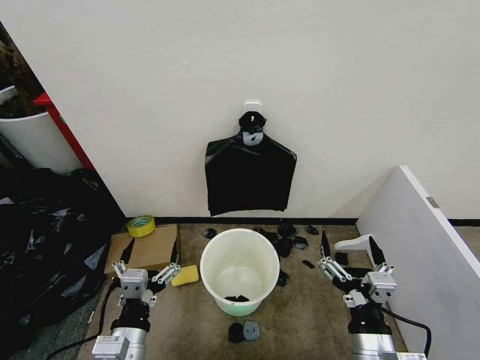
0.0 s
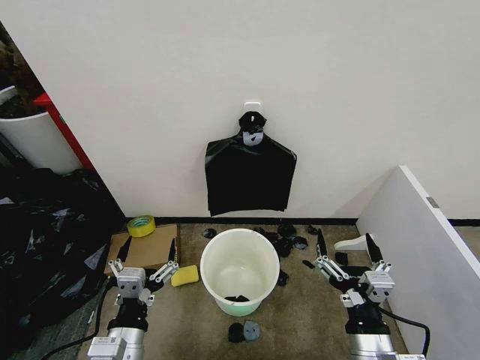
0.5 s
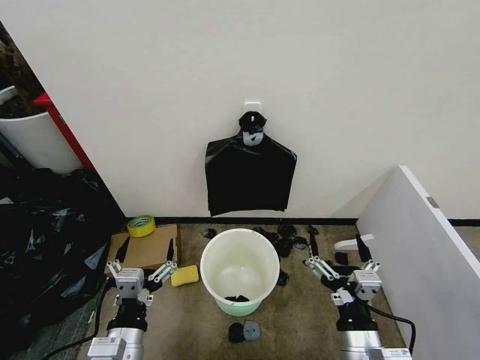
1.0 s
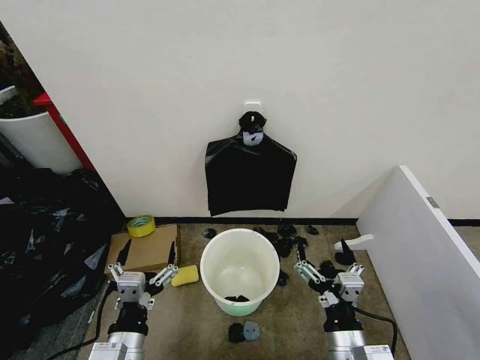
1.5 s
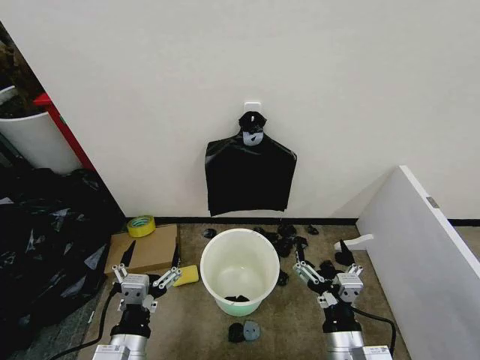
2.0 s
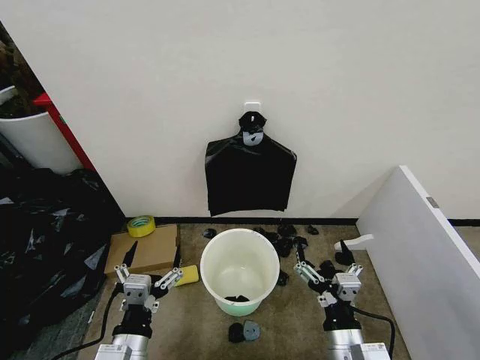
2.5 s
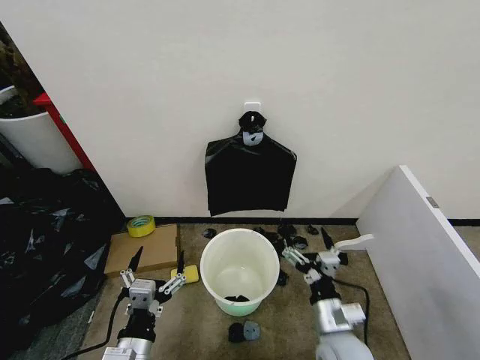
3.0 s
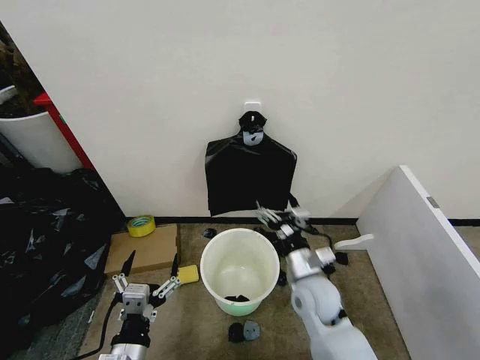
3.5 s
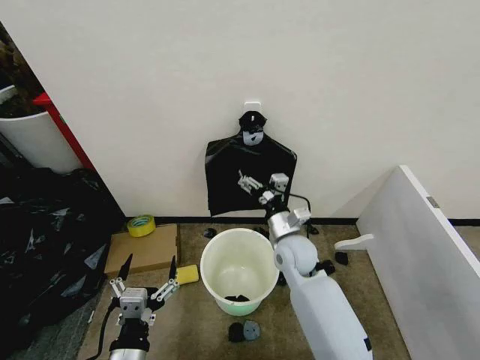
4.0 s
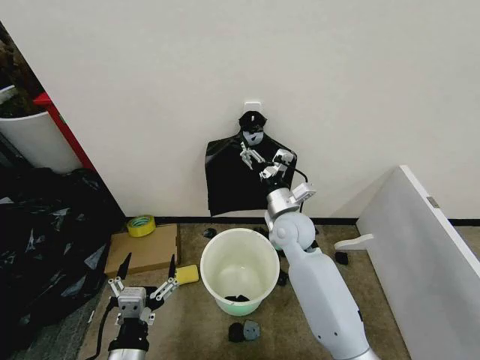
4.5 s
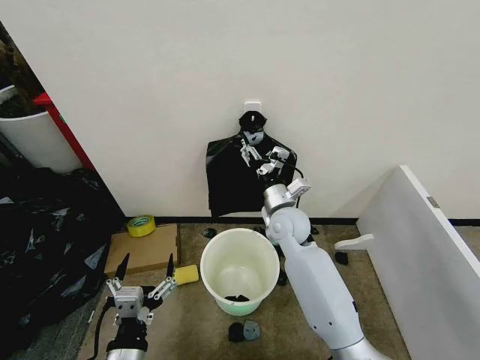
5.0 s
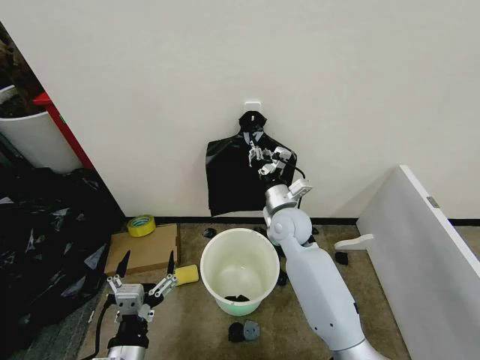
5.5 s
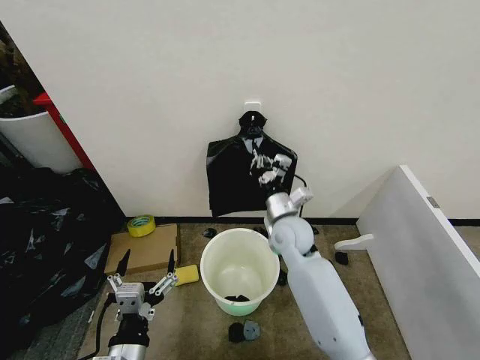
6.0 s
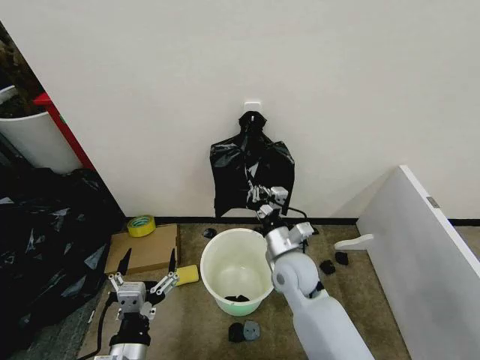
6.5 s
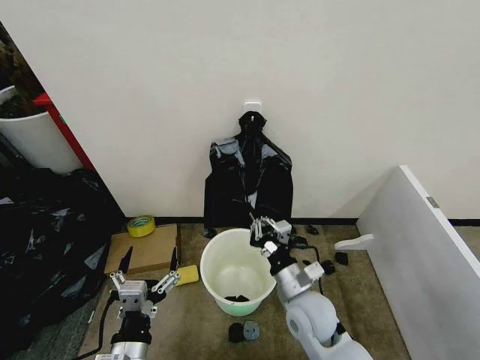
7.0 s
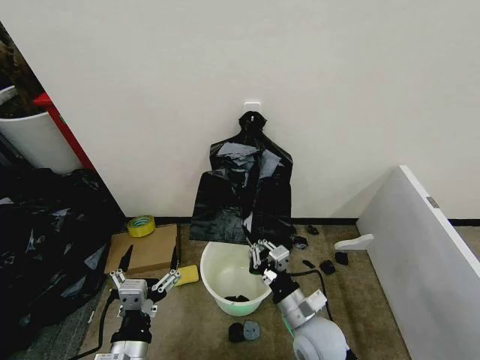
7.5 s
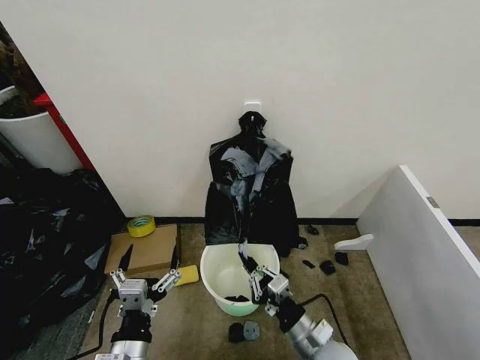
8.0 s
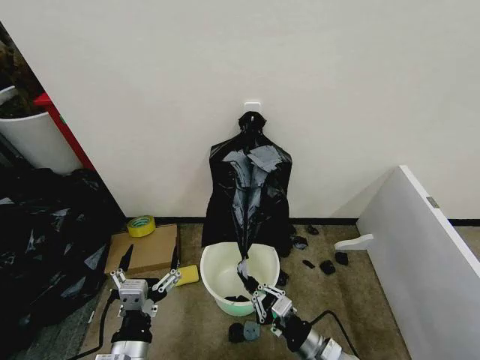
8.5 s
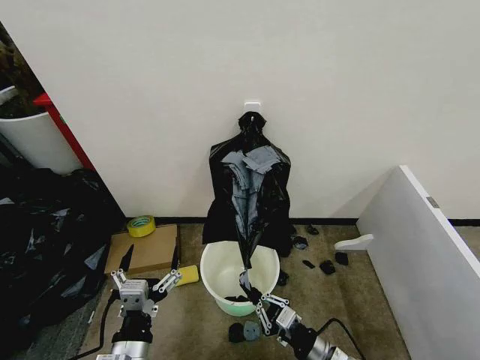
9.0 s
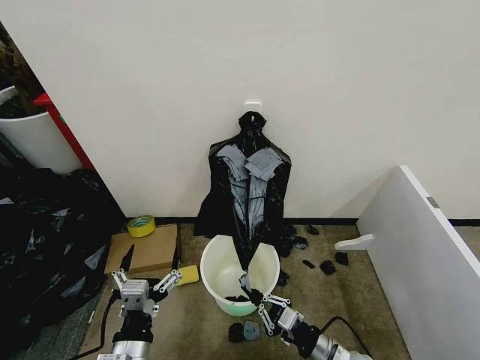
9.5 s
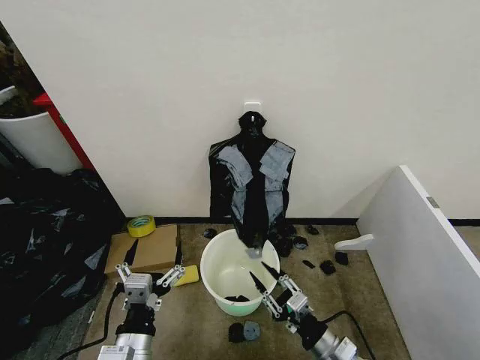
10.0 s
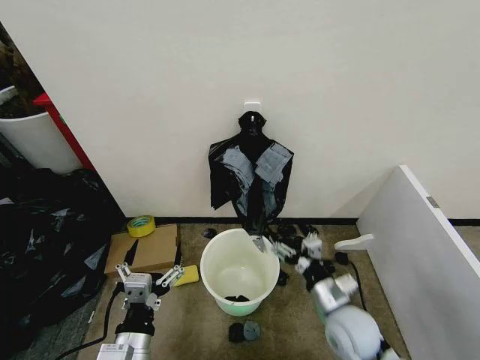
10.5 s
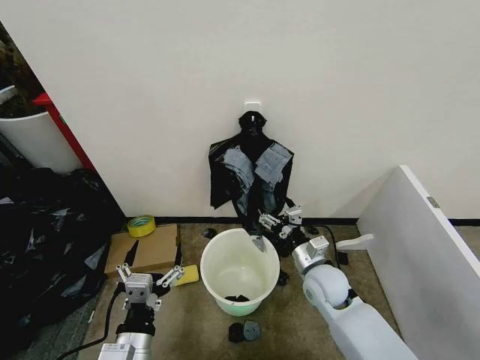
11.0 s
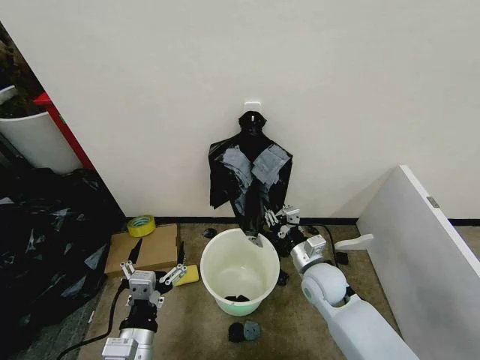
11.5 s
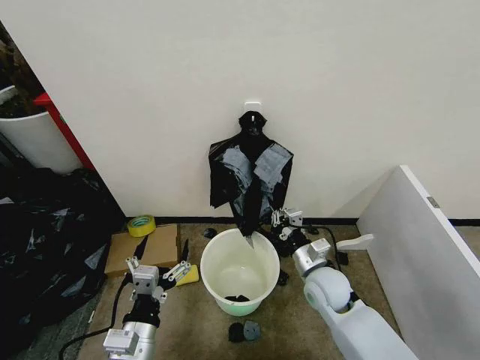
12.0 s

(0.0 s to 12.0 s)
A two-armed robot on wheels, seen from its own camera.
Task of the whole recording: Place the garbage bag over the trash bin.
2.0 s - 4.0 s: The right gripper heads forward, covering some 25 cm.
4.0 s - 6.0 s: The right gripper closes up.
6.0 s - 8.0 s: The right gripper moves backward and downward, some 25 cm.
8.0 s - 10.0 s: The right gripper ends up roughly 5 cm from where it was.
10.0 s - 12.0 s: The right gripper heads forward, covering about 15 cm, and opens, then closes once more.

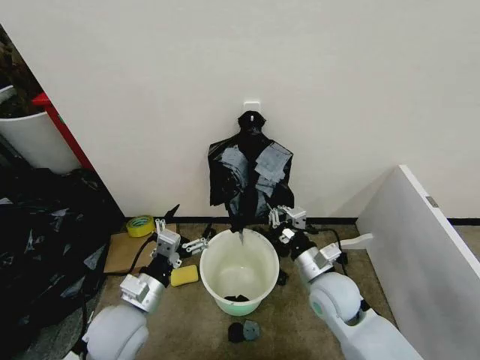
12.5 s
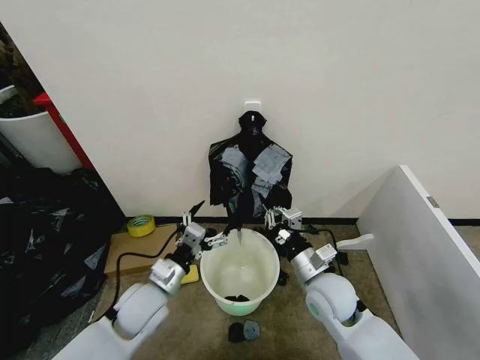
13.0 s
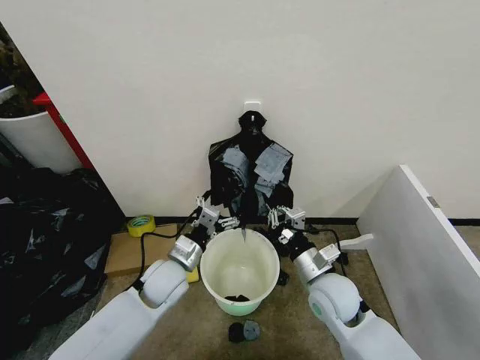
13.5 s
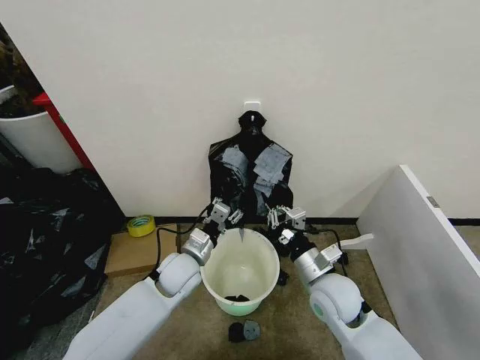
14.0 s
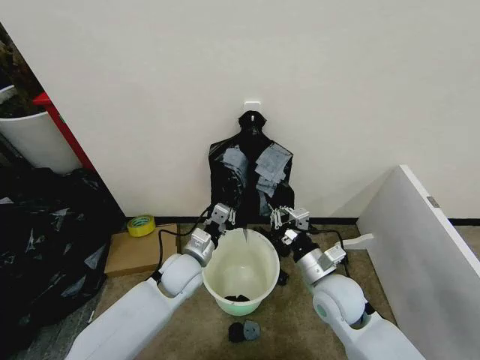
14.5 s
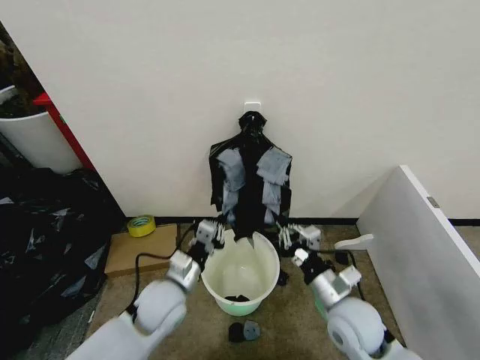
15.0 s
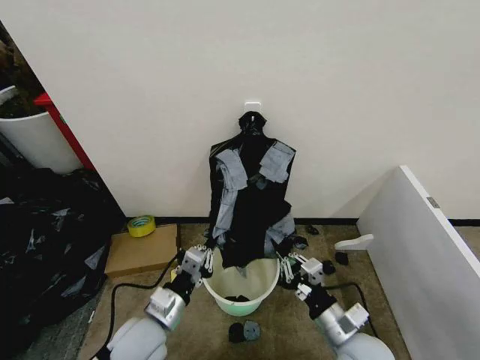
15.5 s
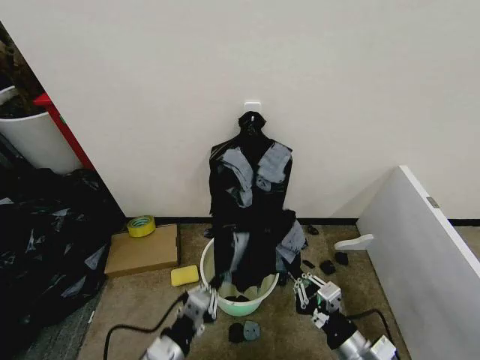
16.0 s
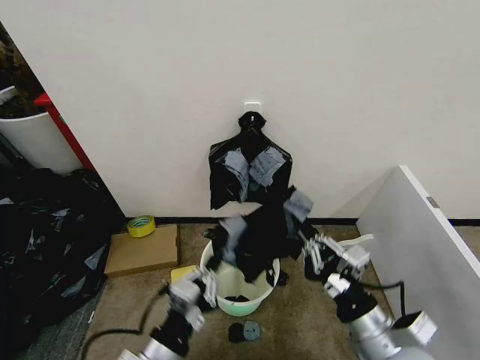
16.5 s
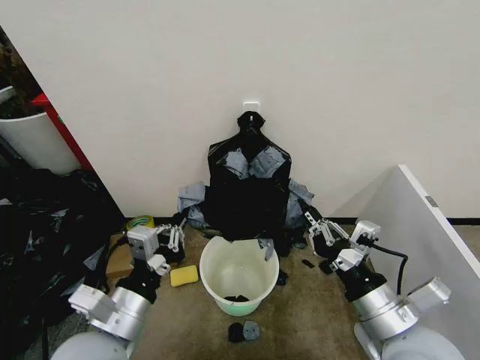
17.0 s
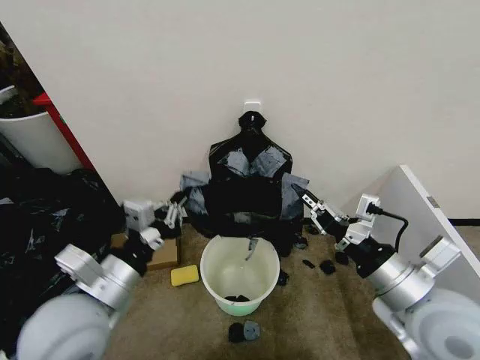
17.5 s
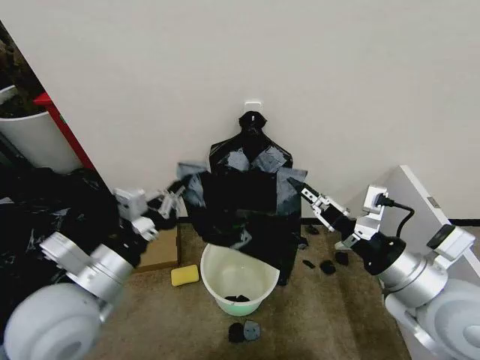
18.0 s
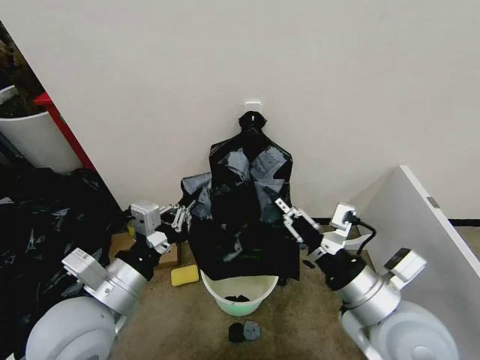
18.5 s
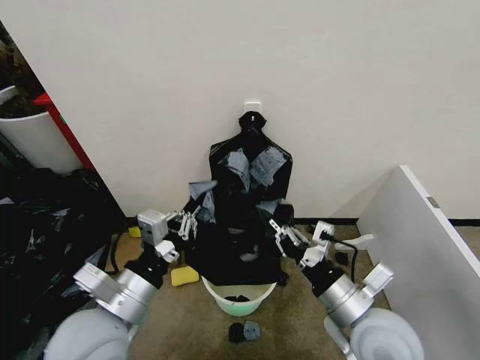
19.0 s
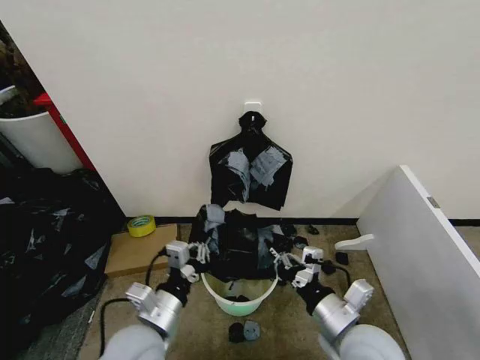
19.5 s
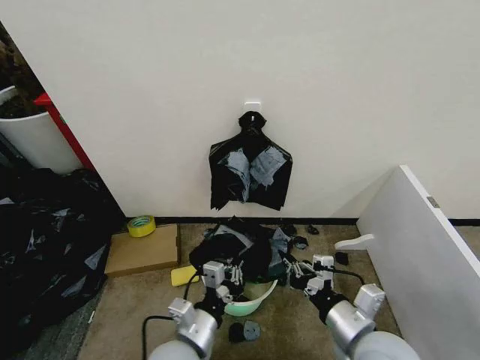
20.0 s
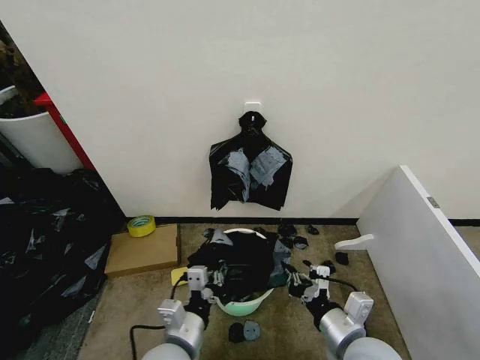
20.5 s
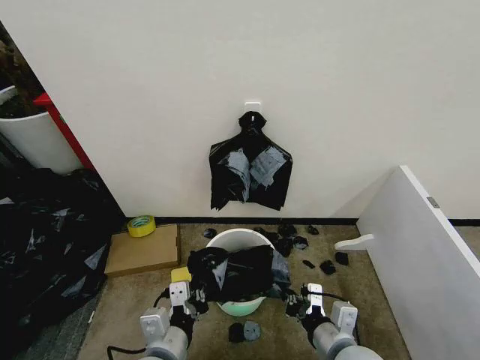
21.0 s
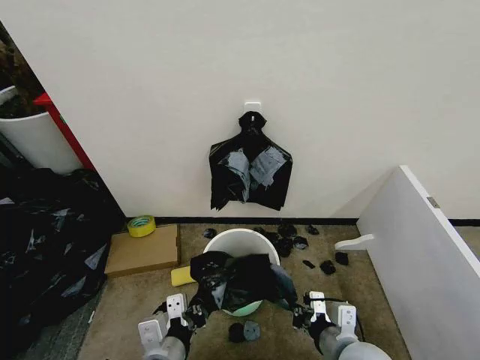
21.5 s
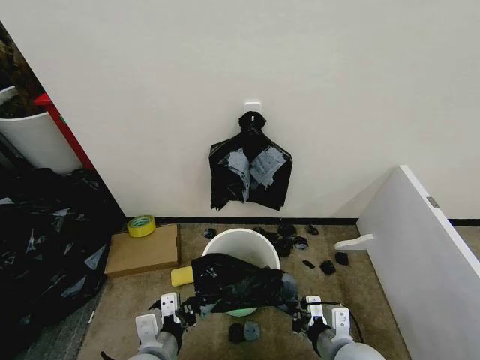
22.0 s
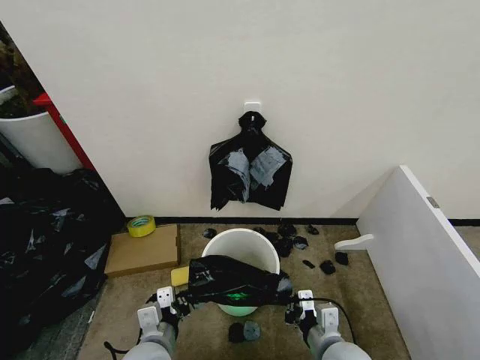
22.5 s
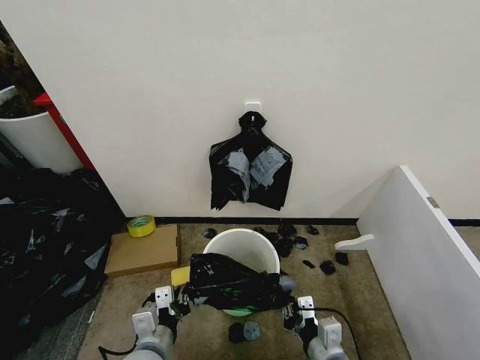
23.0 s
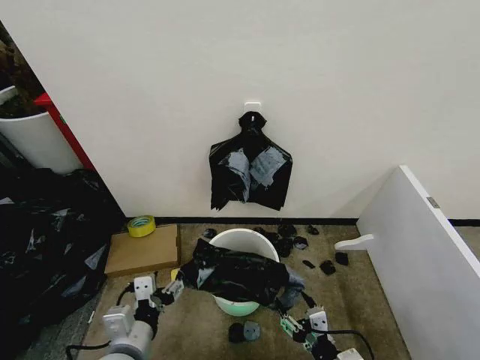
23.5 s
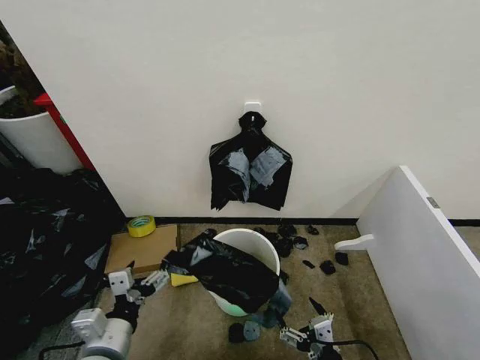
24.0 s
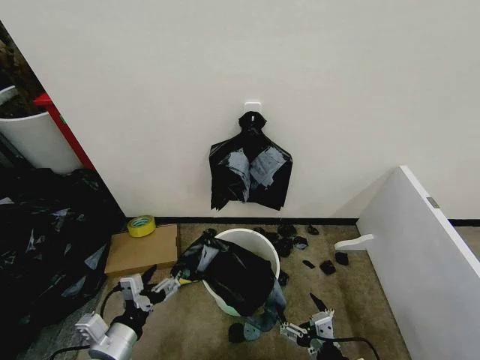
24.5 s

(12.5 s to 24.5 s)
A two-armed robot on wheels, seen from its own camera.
Task of the whole recording: Place the garbage bag over the trash bin.
12.5 s - 14.5 s: The left gripper travels forward and to the right by about 15 cm, and closes up.
14.5 s - 16.5 s: The left gripper shifts roughly 25 cm backward; the right gripper travels backward by roughly 15 cm.
16.5 s - 18.5 s: The left gripper heads upward, forward and to the left, covering about 15 cm, while the right gripper heads upward, covering approximately 10 cm.
18.5 s - 20.5 s: The left gripper moves downward and to the right, roughly 20 cm, while the right gripper heads downward, covering some 10 cm.
20.5 s - 22.5 s: The left gripper changes place by about 5 cm; the right gripper moves downward, roughly 5 cm.
22.5 s - 24.5 s: The left gripper heads to the left, covering roughly 10 cm, and opens; the right gripper heads backward, covering approximately 10 cm, and opens.

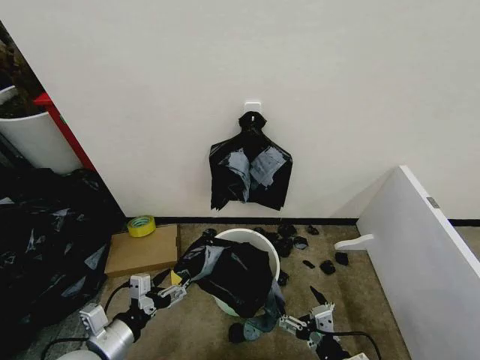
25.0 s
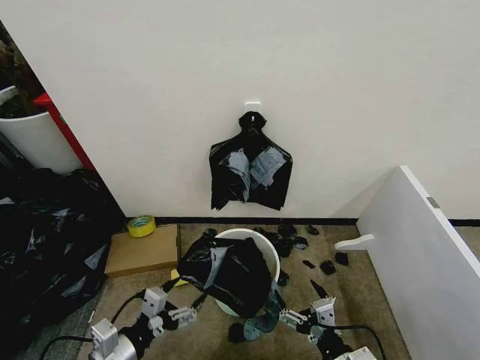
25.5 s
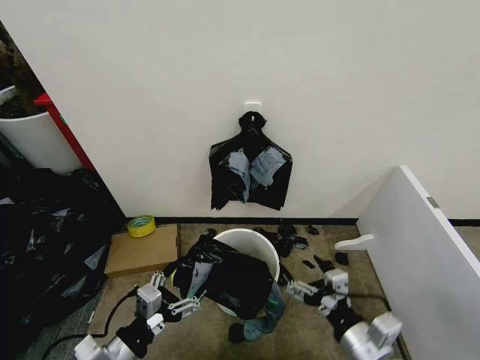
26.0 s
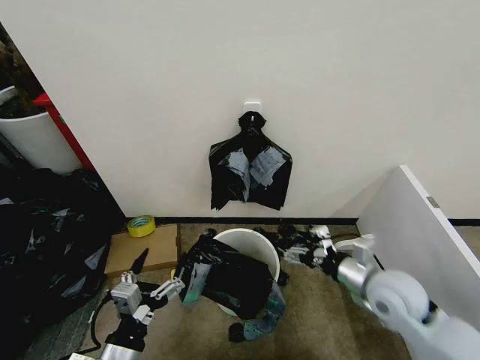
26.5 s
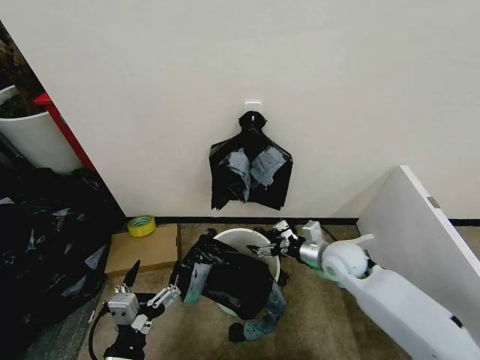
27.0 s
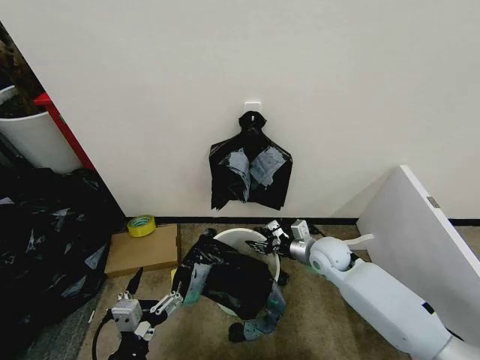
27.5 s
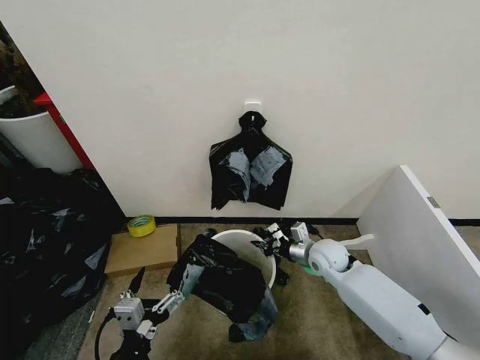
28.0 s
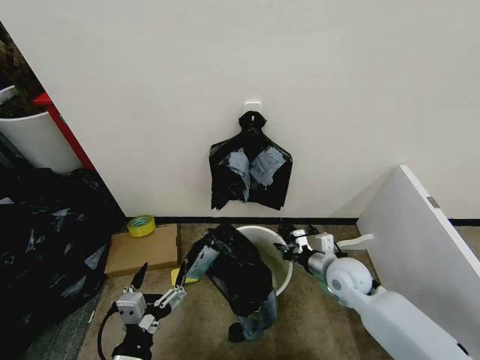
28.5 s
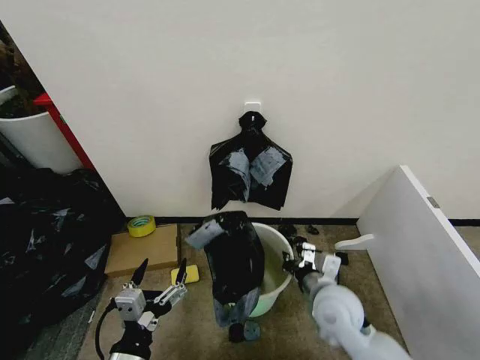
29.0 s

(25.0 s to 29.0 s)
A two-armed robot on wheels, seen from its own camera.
Task of the whole recording: Place the garbage bag over the trash bin.
25.0 s - 27.0 s: The right gripper heads forward, covering some 30 cm. Meanwhile the left gripper is displaced backward and to the right by roughly 10 cm.
27.0 s - 29.0 s: The right gripper goes about 10 cm backward and to the left, and closes up.
